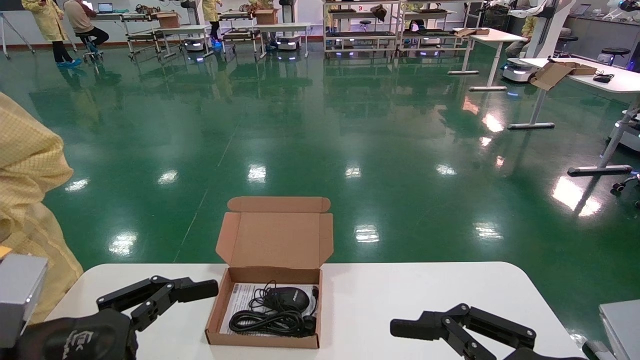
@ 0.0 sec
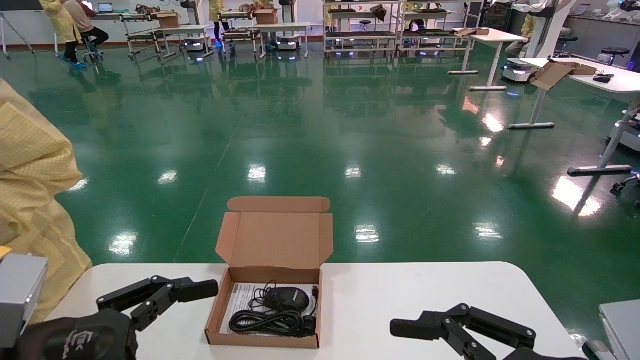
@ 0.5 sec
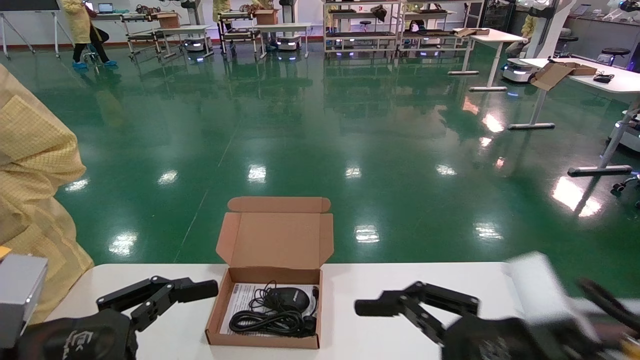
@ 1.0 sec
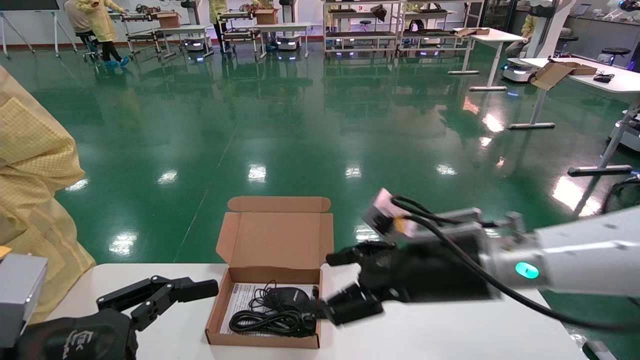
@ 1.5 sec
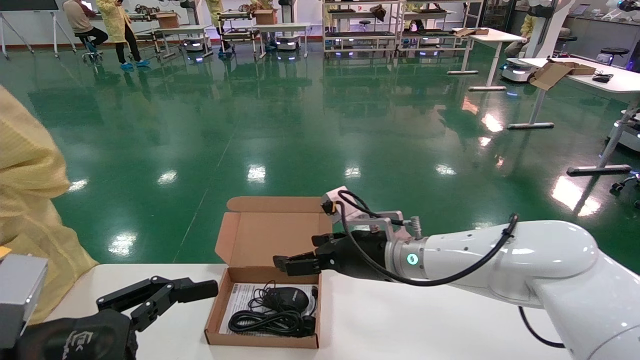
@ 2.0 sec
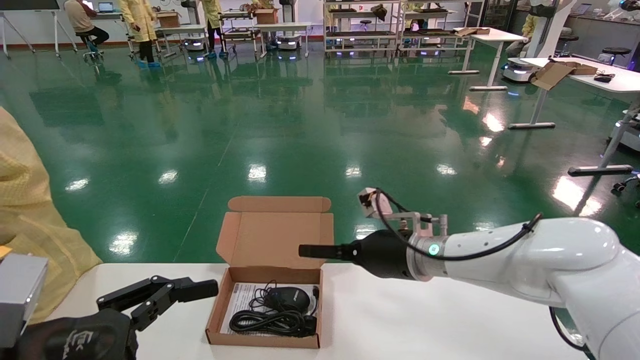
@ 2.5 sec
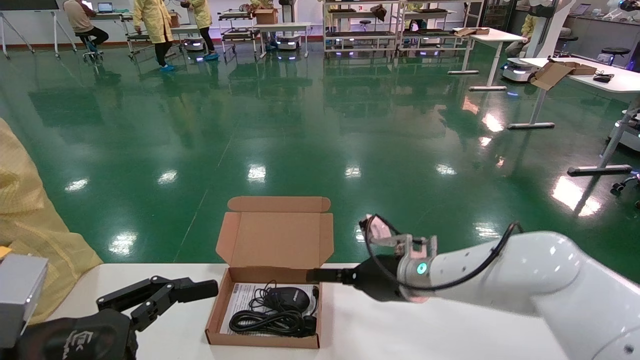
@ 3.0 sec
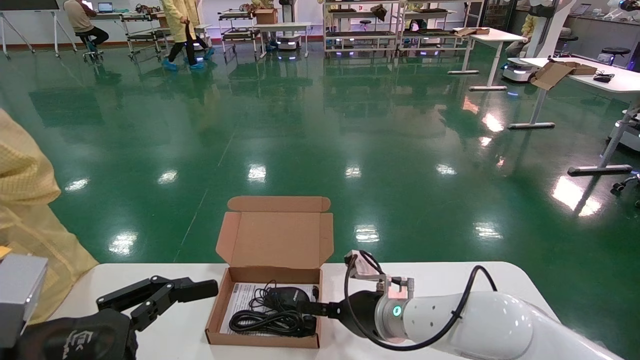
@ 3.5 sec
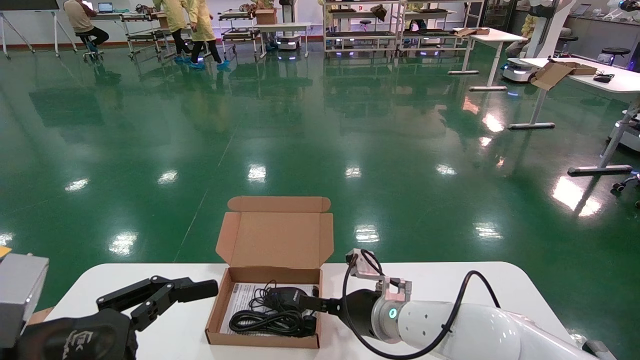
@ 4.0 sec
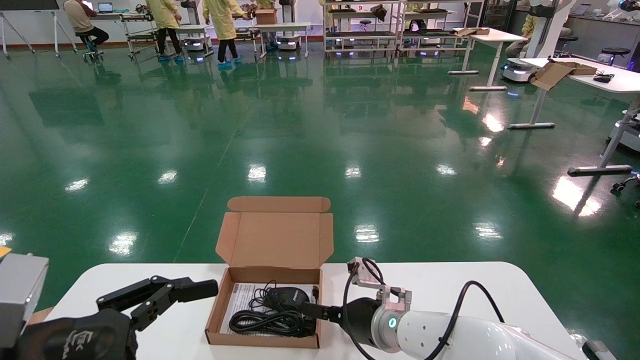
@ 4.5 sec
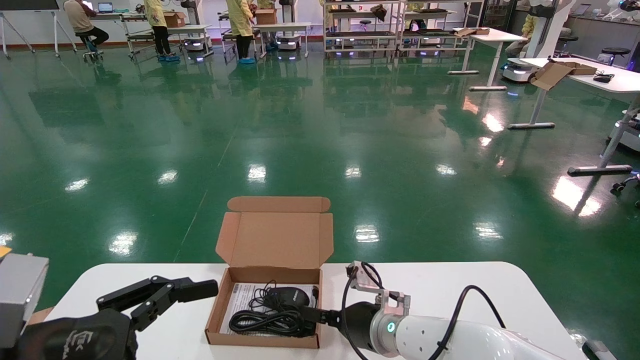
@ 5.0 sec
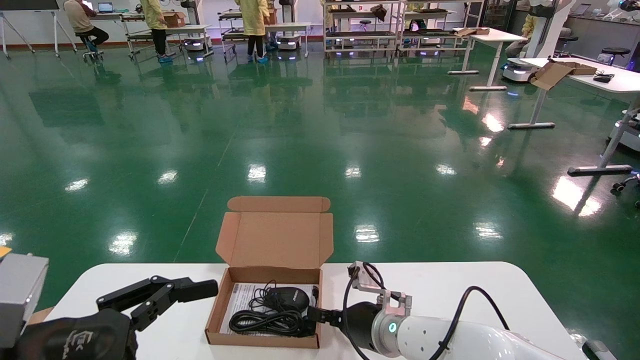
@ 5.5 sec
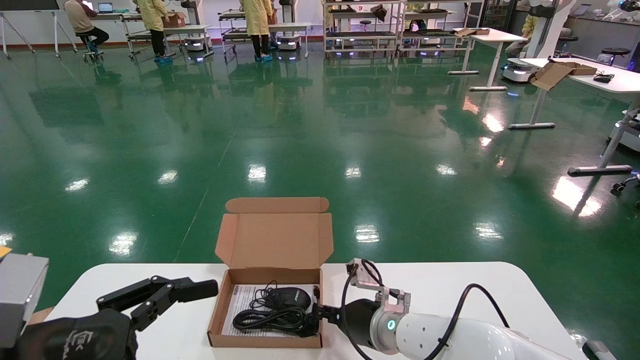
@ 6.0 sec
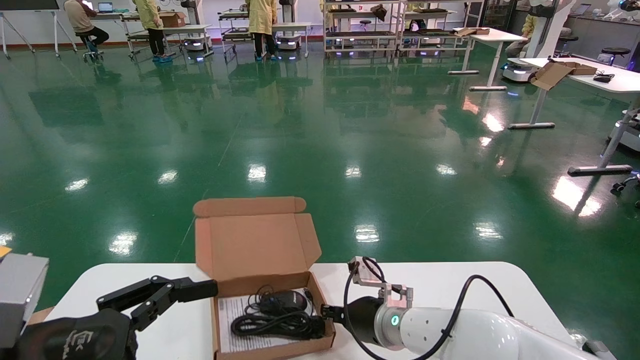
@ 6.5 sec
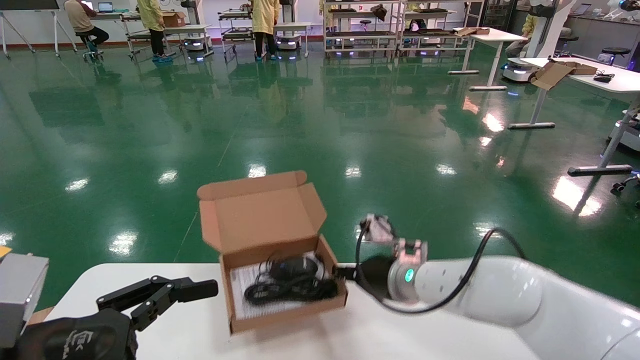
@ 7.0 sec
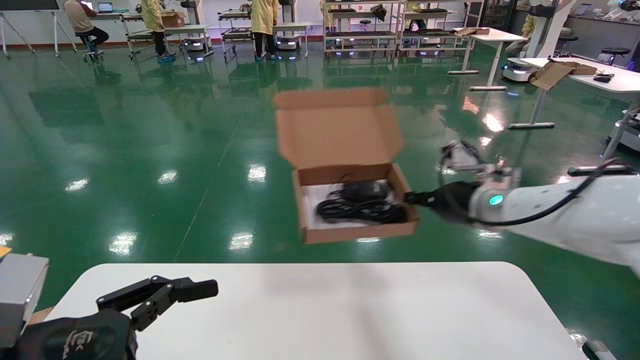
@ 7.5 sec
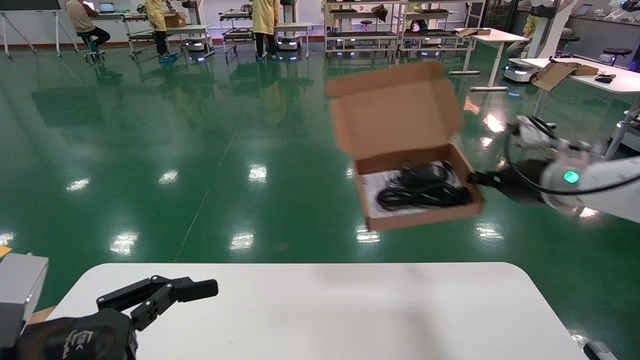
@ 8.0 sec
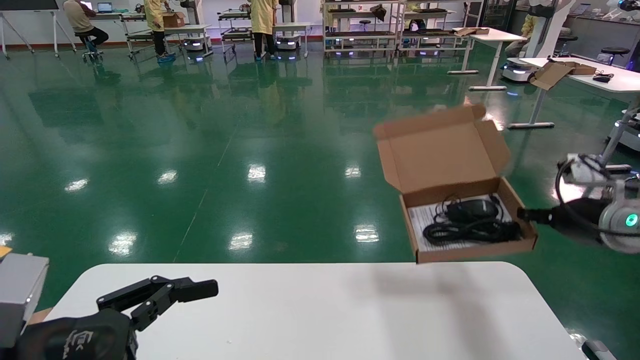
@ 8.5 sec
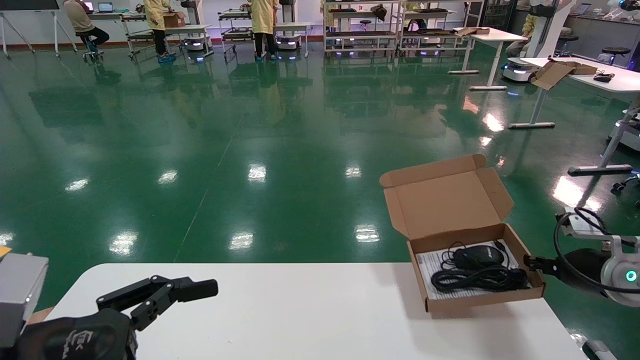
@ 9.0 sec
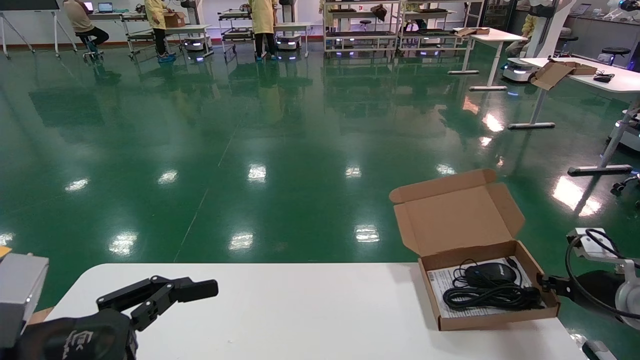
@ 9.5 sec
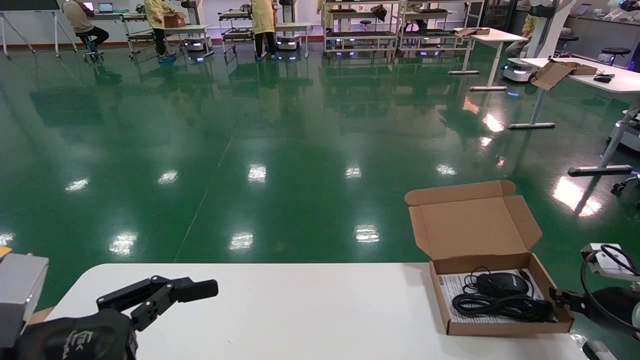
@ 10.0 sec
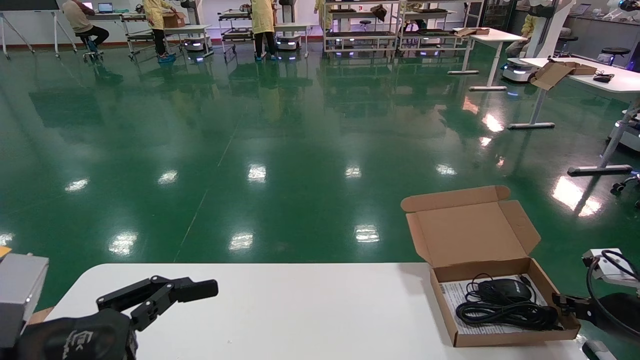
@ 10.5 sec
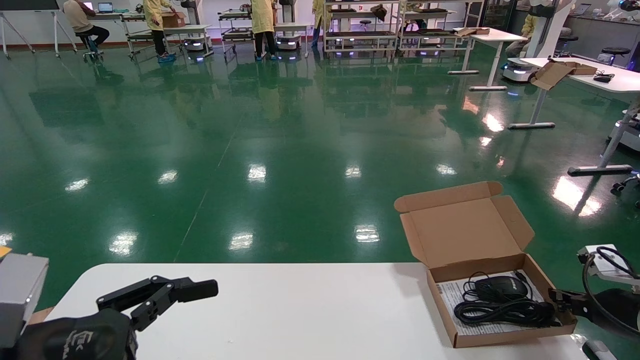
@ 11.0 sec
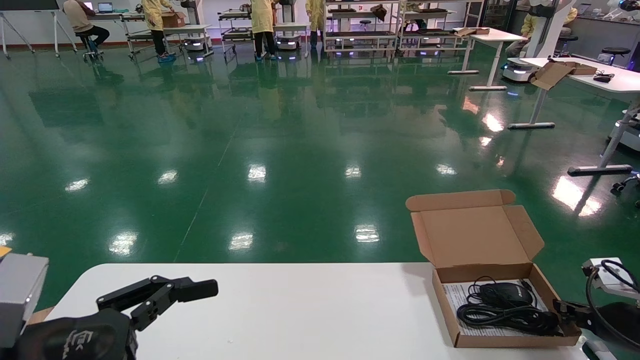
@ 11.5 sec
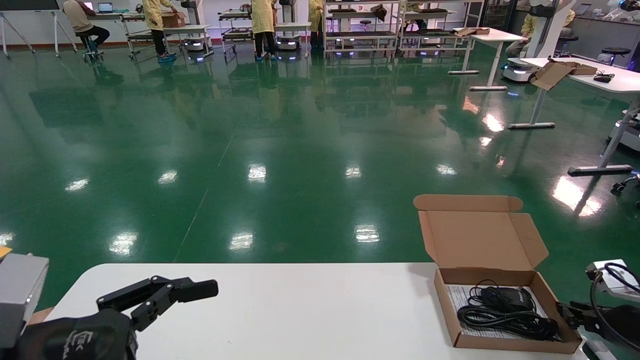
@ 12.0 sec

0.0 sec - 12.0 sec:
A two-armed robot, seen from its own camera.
Task of the whole recording: move the position of the storage box with accessories on the table.
Step, 1.5 sec - 6.0 sec: Grab and pick up the open mouse box from the accessory packaging area.
0.0 sec - 2.0 sec: The right gripper is displaced forward and to the left by about 30 cm.
2.0 sec - 4.0 sec: The right gripper shifts approximately 10 cm downward.
4.0 sec - 6.0 sec: The right gripper closes up.
6.0 sec - 8.0 sec: The right gripper travels to the right and upward by roughly 35 cm.
8.0 sec - 10.0 sec: The right gripper shifts roughly 25 cm downward and to the right.
10.0 sec - 12.0 sec: There are only small adjustments of the grippers.

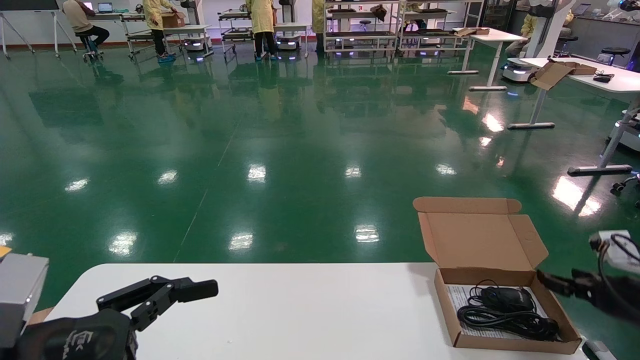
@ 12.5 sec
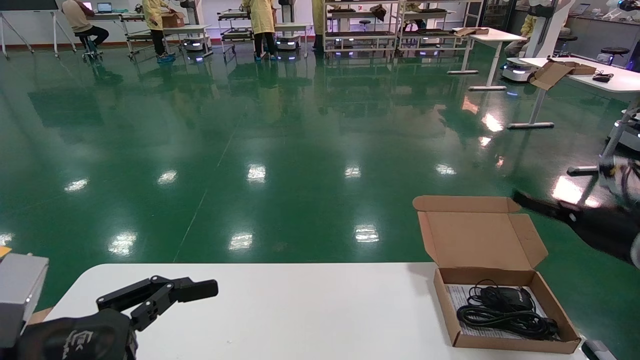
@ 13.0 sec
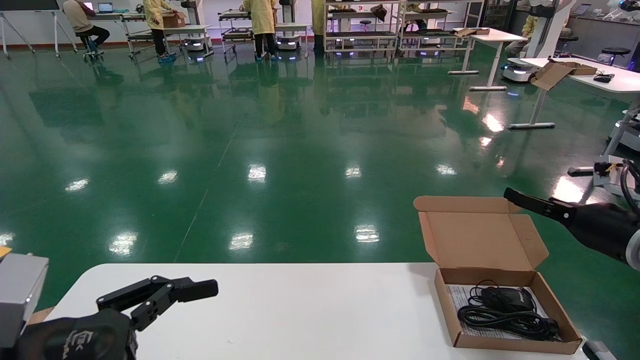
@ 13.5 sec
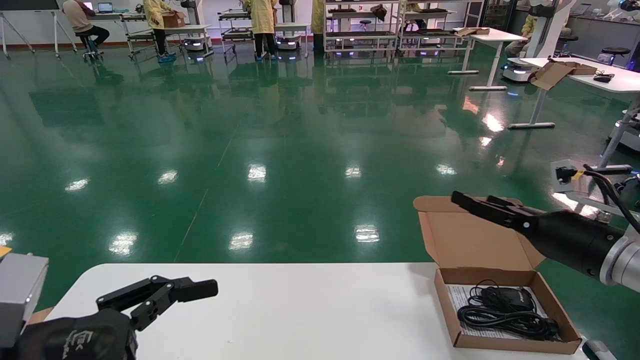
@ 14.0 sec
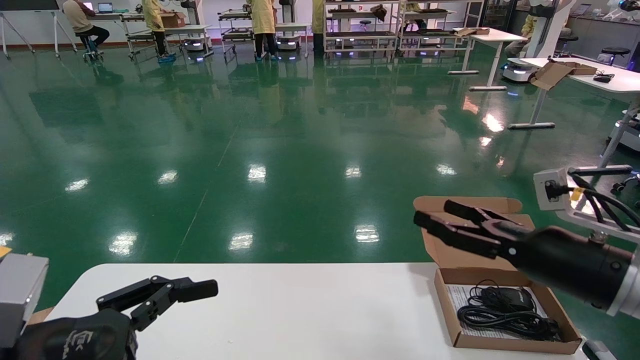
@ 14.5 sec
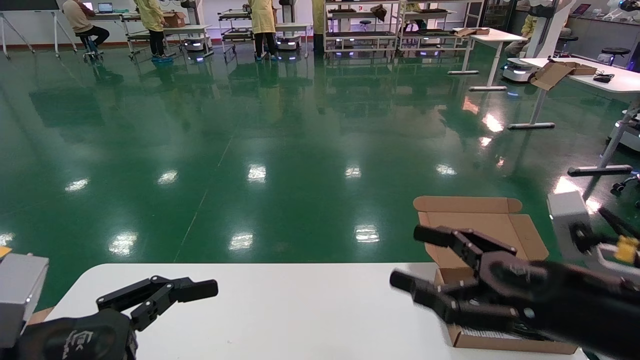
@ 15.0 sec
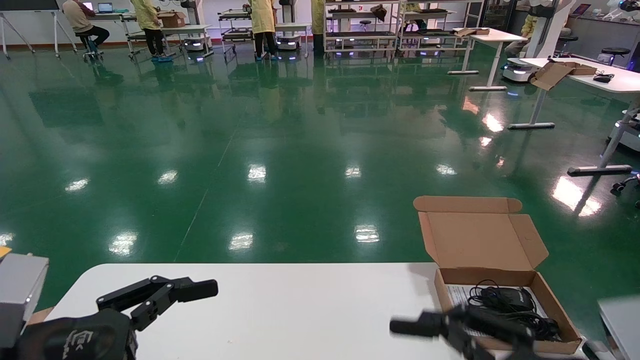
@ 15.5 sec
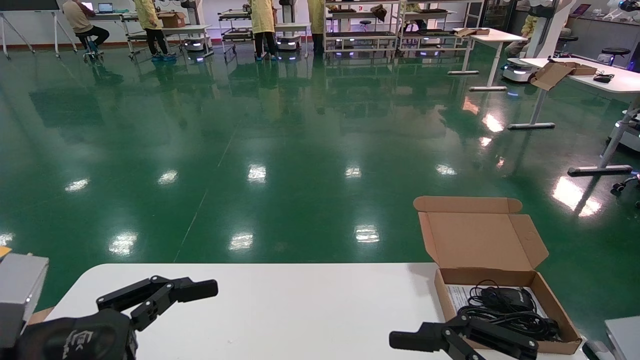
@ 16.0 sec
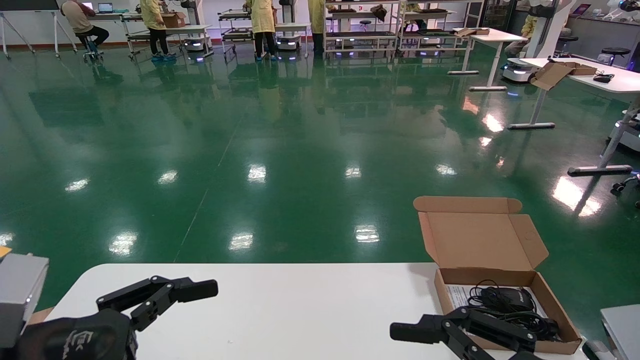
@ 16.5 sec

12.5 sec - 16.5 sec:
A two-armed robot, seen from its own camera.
Task of the whole recording: move the position of the storage box with accessories on the table.
12.5 sec - 14.5 sec: The right gripper goes some 20 cm to the left, backward and upward, and opens.
14.5 sec - 16.5 sec: The right gripper heads backward, covering approximately 15 cm.
